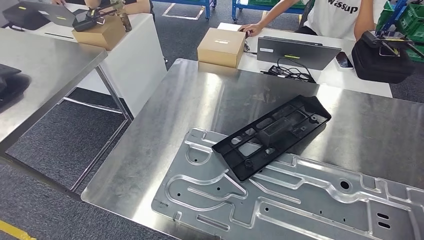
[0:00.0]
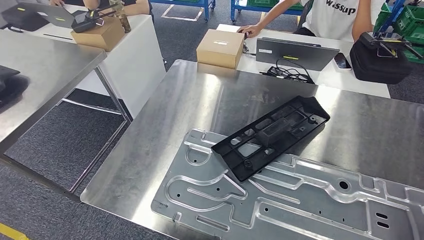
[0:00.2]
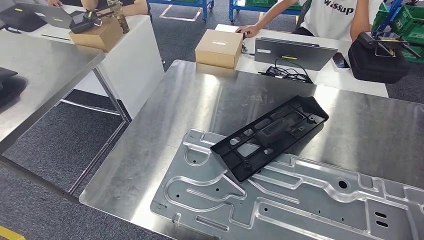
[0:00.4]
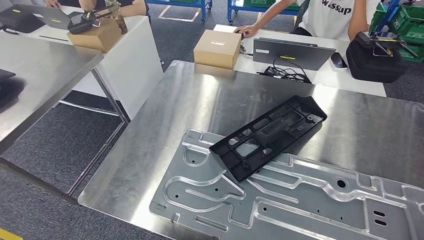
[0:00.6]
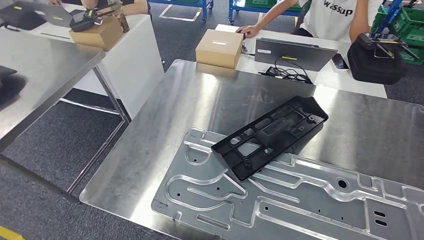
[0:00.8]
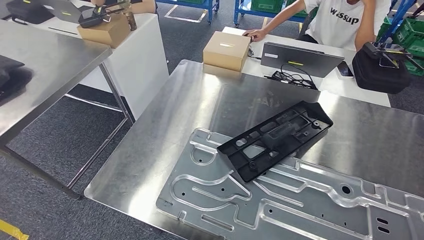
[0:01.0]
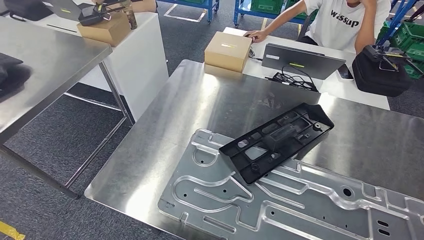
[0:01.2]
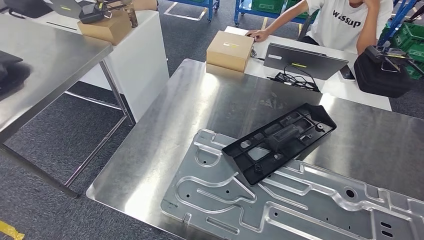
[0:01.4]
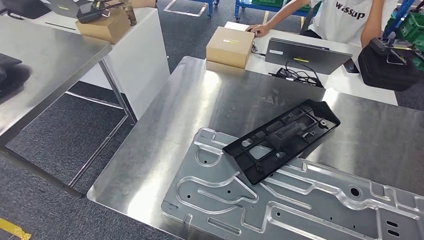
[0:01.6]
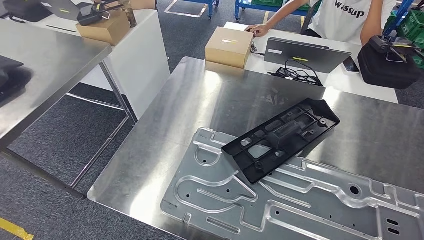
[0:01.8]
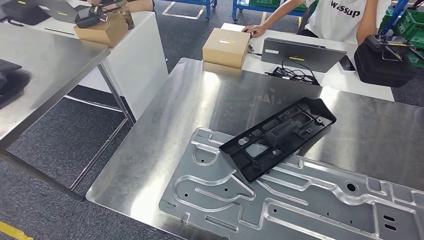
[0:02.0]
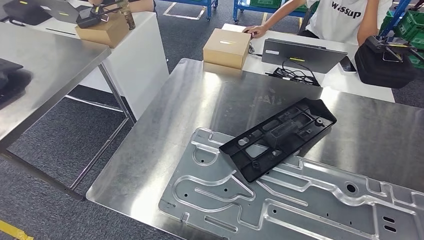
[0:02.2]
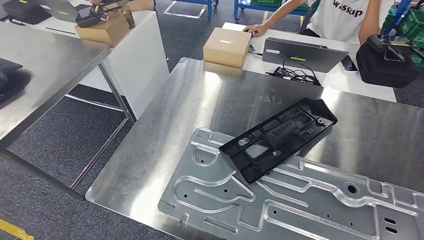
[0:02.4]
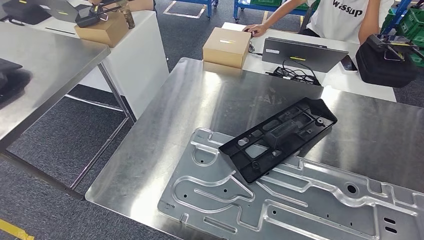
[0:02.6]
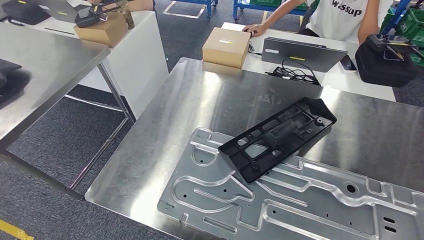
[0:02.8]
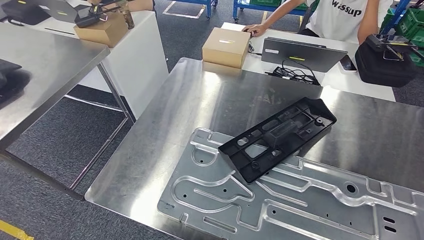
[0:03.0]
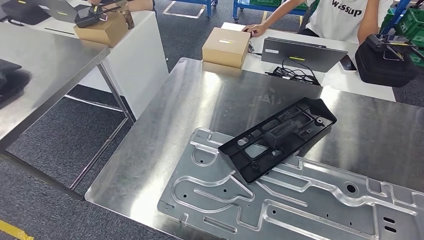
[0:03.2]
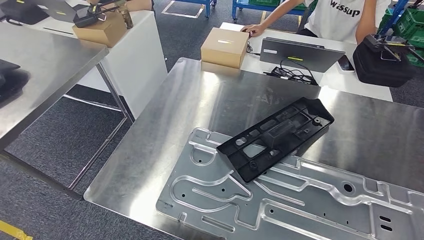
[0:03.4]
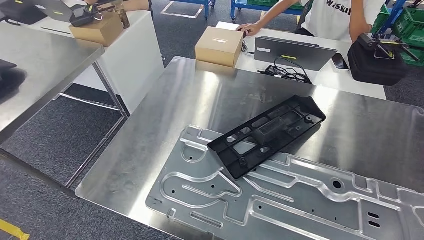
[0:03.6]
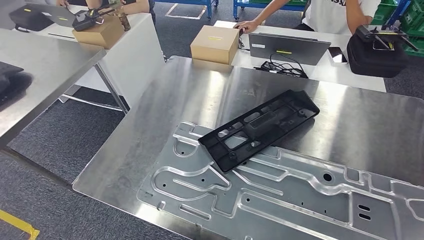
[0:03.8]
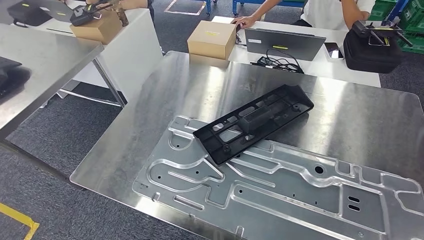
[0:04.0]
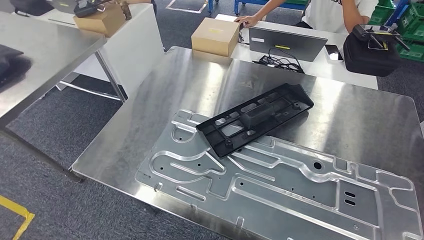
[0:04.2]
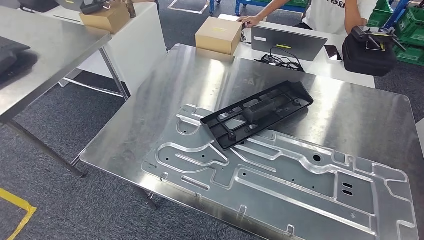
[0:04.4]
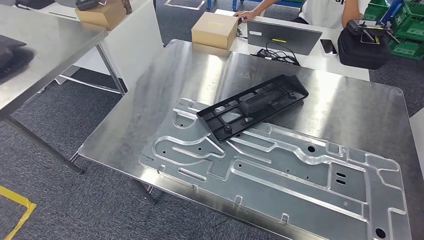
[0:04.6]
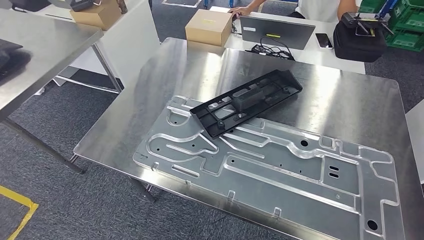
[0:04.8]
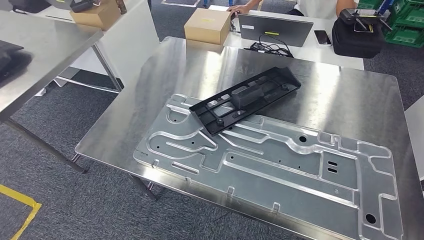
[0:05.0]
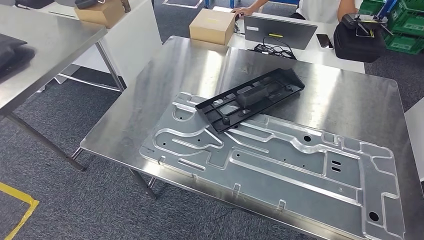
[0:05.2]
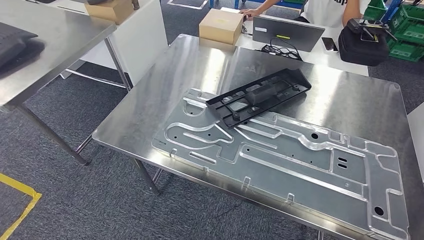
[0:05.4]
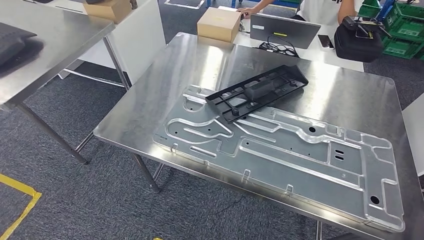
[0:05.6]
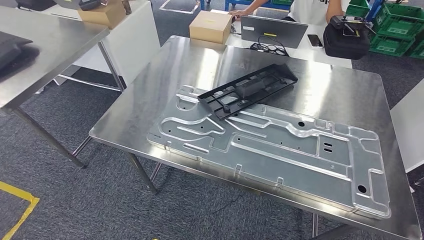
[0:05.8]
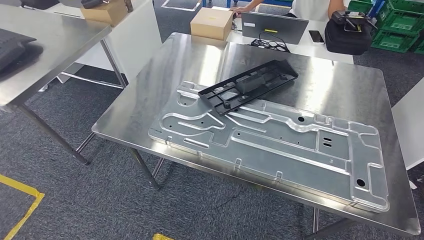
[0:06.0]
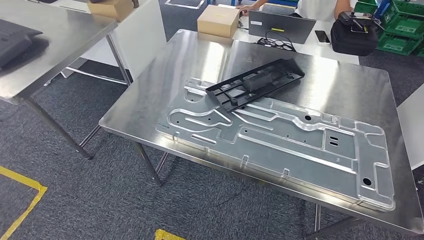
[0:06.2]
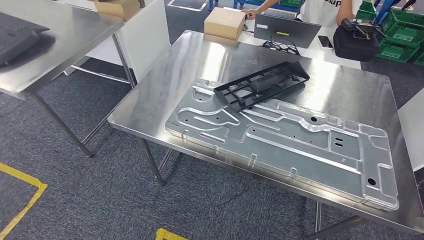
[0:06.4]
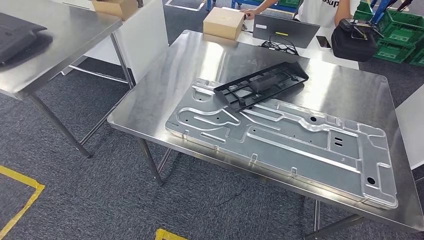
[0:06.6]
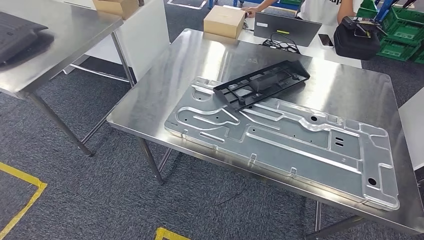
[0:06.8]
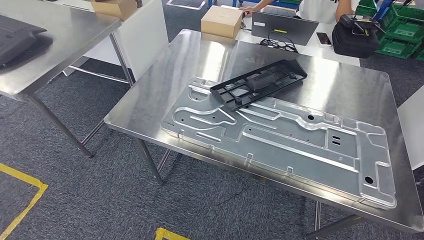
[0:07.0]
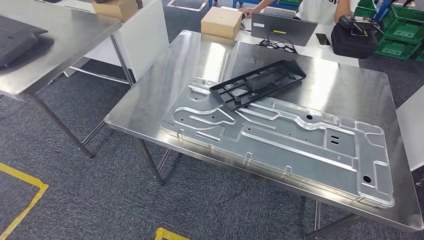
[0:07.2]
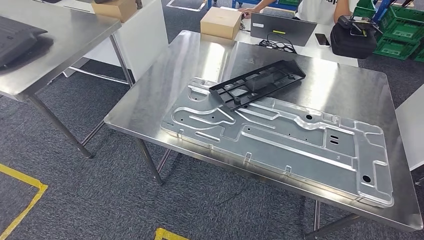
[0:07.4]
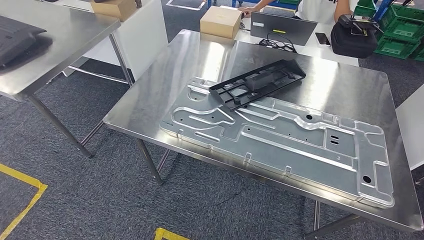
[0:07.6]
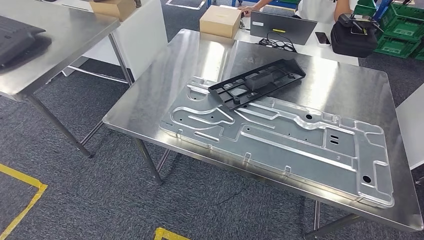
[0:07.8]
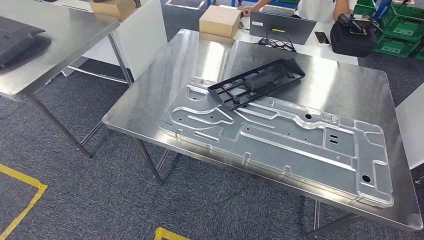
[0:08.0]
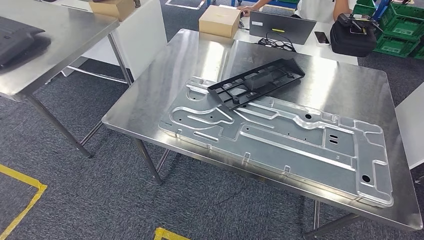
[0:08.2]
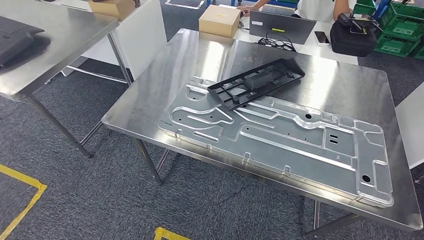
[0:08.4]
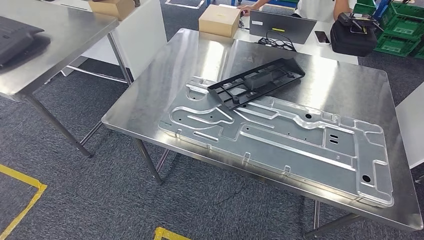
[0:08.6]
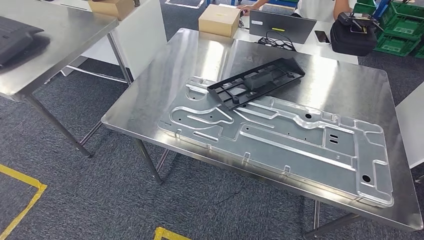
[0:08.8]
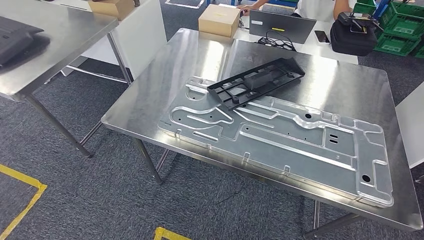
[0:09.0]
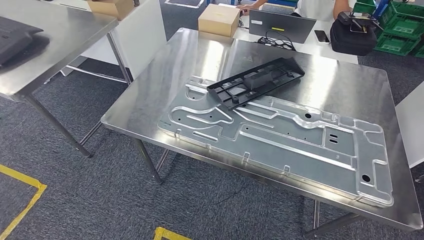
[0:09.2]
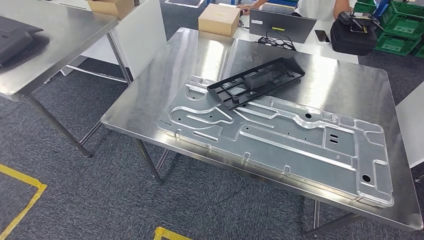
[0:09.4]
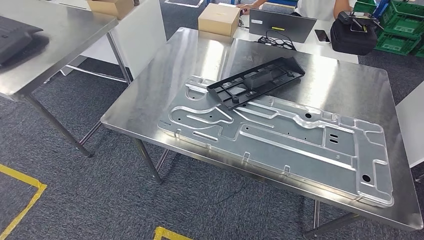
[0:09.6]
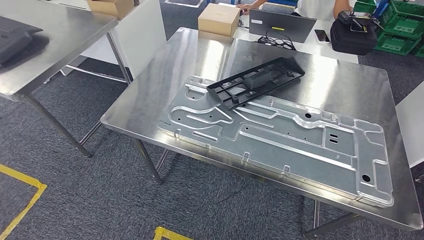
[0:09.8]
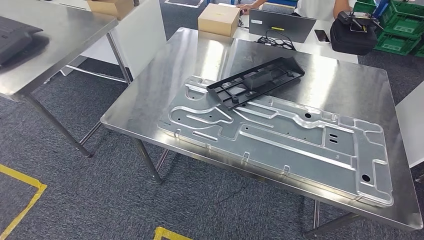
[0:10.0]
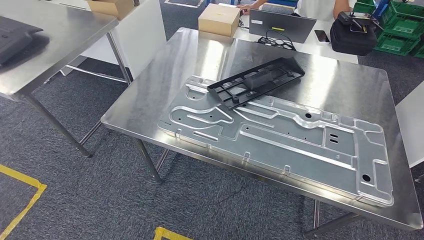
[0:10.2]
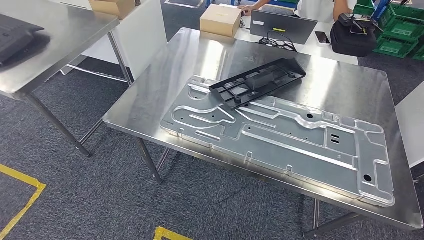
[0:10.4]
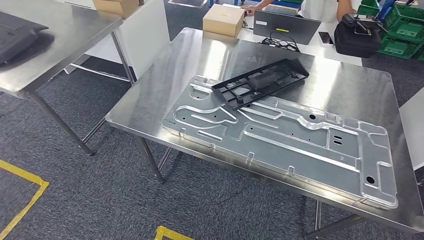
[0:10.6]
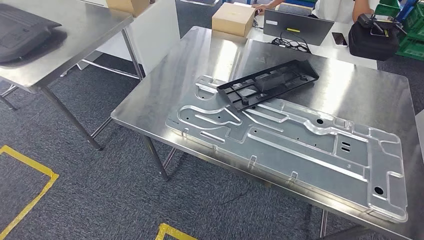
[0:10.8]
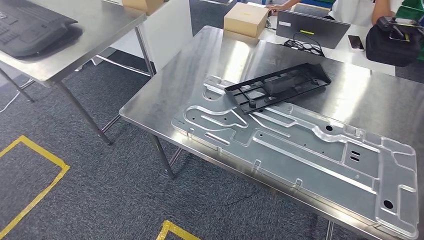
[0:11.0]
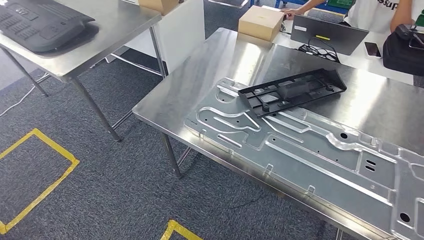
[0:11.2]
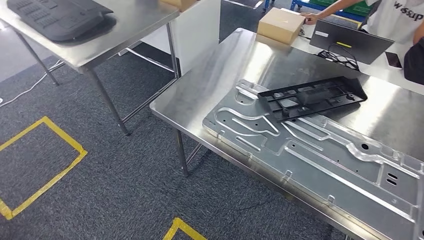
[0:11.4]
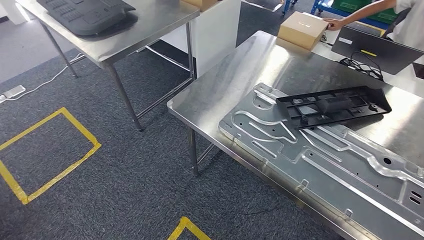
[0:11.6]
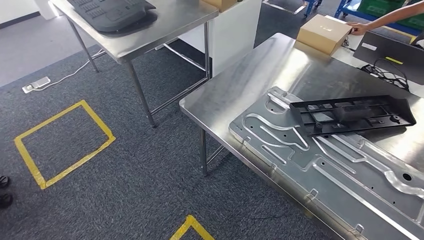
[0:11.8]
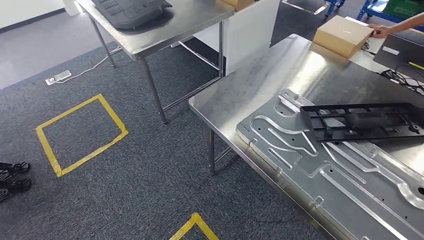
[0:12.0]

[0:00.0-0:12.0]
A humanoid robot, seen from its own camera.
Step, 0:00.0 to 0:06.4: Insert the large material into the corresponding slot on the workbench.
0:07.6 to 0:09.0: The right hand heads to the left, covering roughly 10 cm.
0:09.0 to 0:10.4: The hands make only small movements.

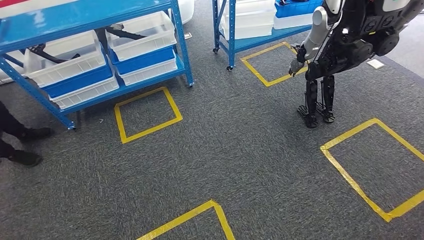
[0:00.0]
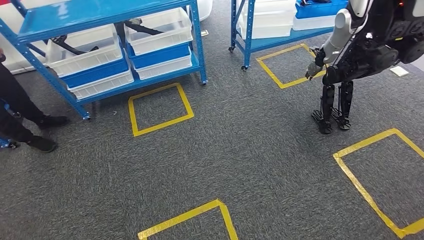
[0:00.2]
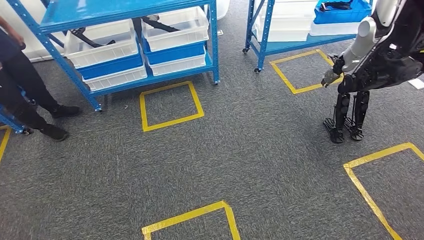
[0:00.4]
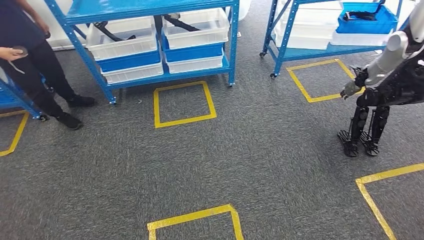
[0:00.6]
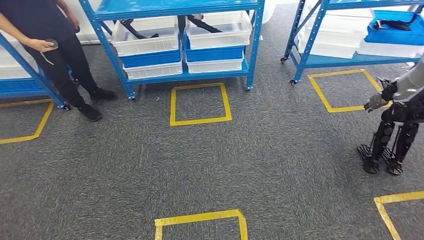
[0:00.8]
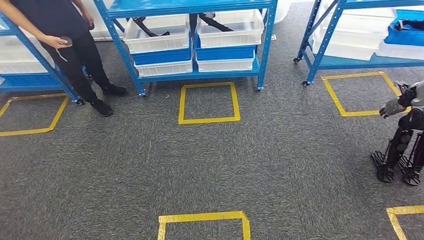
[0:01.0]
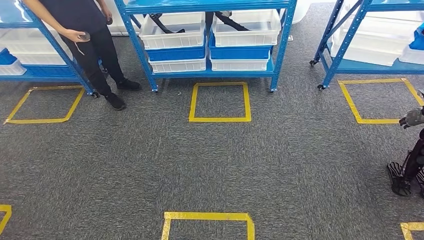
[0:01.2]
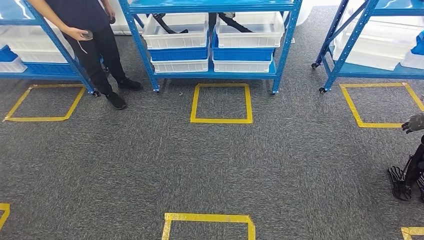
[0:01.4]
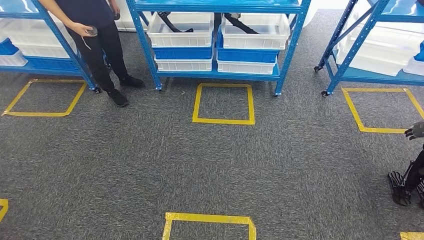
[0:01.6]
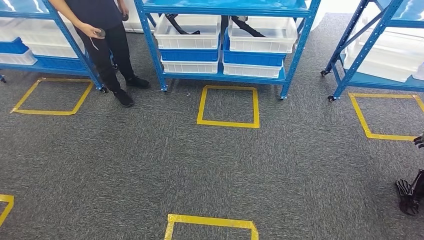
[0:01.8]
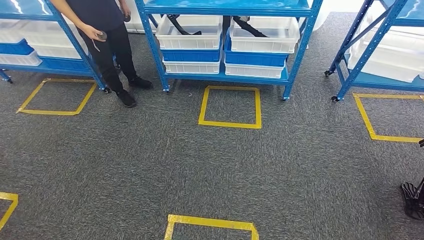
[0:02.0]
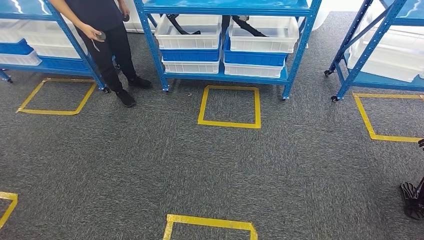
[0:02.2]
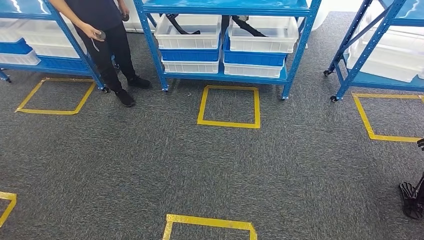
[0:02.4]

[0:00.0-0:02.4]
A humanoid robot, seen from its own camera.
Step, 0:00.0 to 0:02.4: Return to the initial position at the shelf.

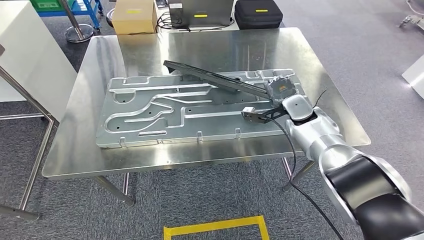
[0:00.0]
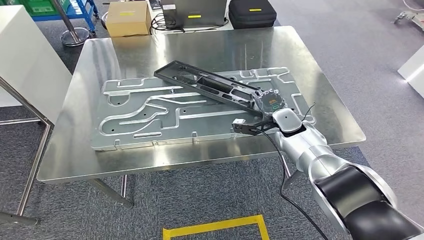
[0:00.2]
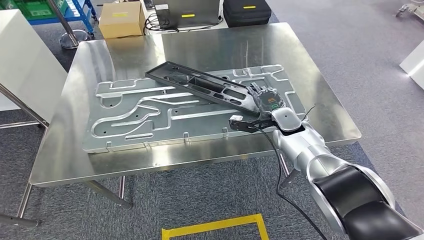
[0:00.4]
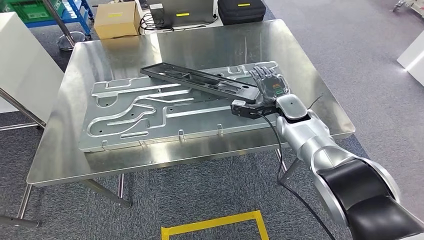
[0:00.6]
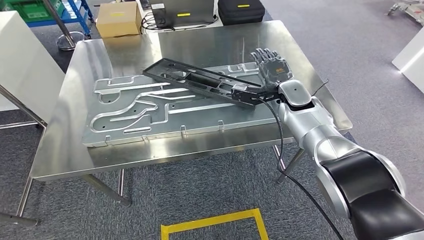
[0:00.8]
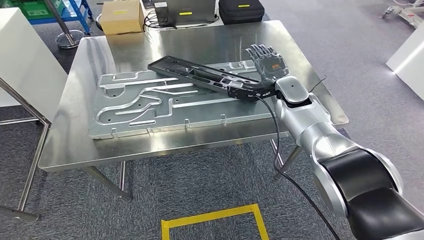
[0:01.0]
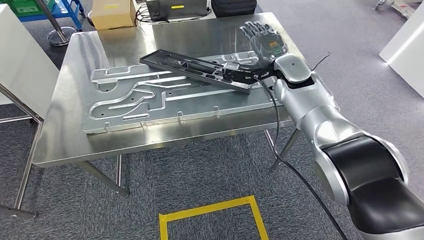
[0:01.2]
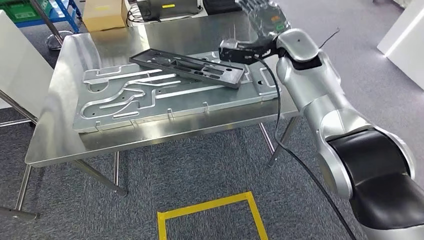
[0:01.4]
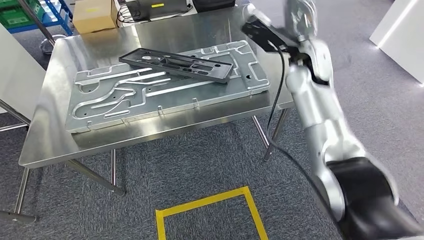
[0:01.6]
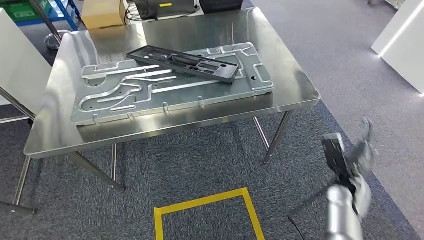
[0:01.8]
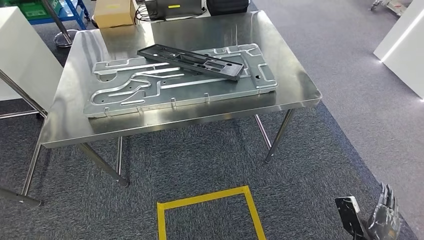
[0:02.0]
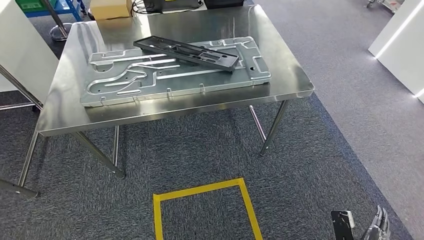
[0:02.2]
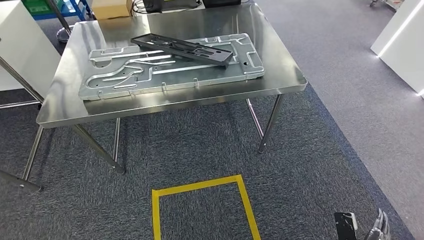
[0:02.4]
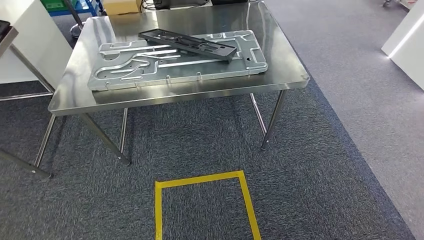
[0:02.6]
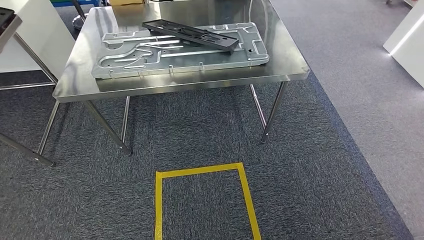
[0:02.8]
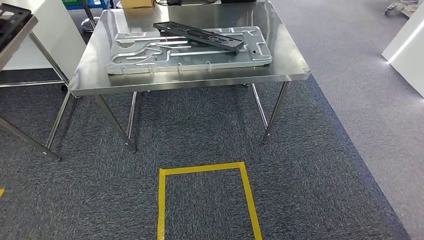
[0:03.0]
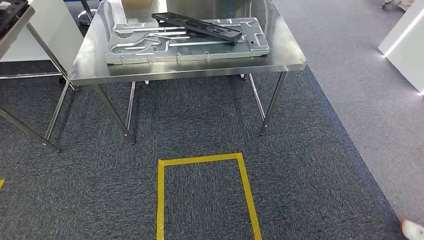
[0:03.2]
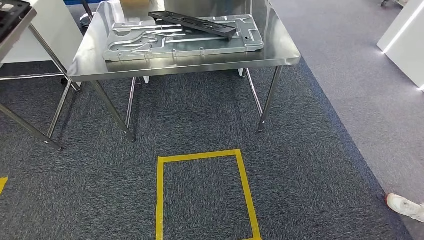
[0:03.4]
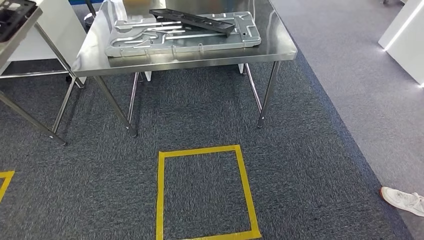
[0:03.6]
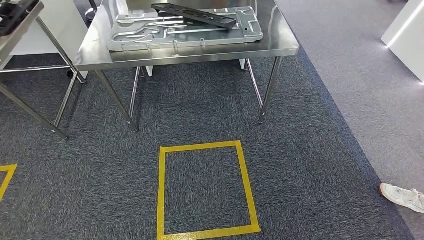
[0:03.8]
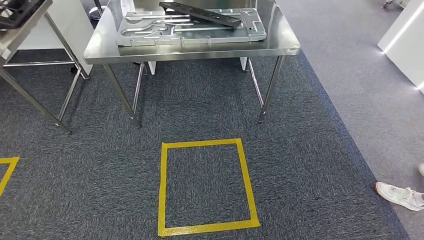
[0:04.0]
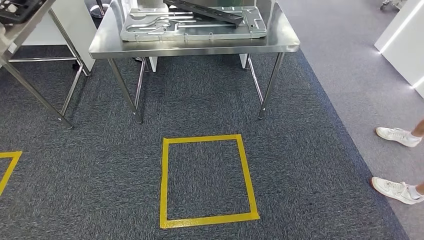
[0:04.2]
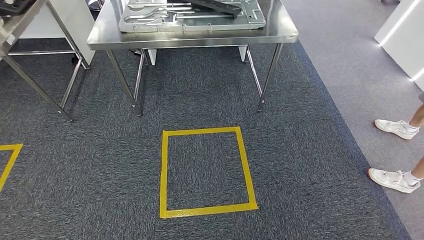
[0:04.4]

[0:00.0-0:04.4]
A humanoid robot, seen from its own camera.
Step, 0:00.0 to 0:03.2: Insert the large material into the corresponding slot on the workbench.
